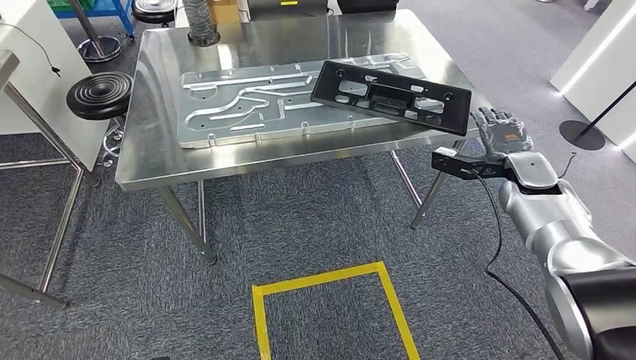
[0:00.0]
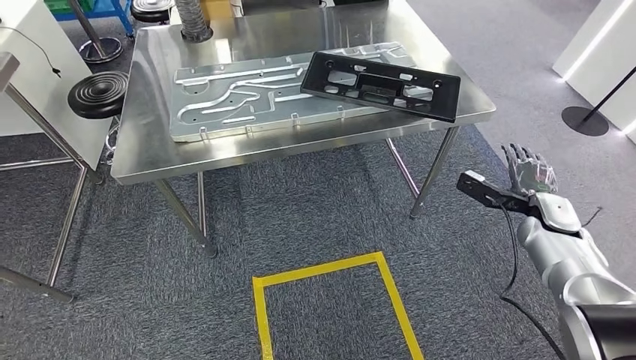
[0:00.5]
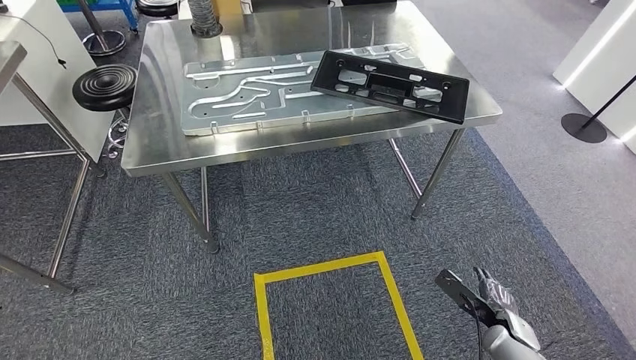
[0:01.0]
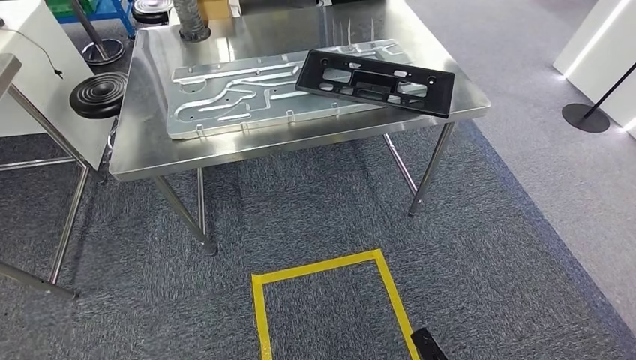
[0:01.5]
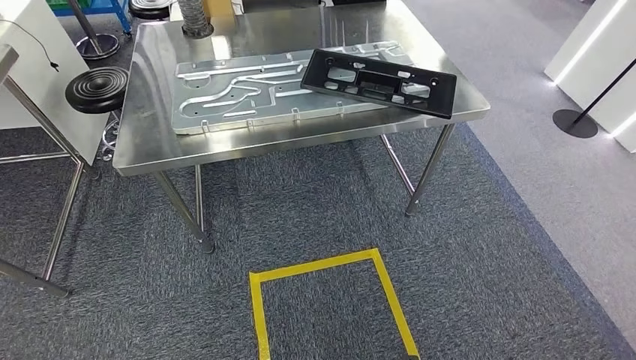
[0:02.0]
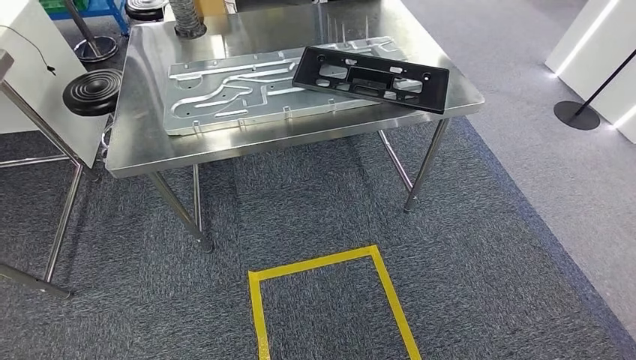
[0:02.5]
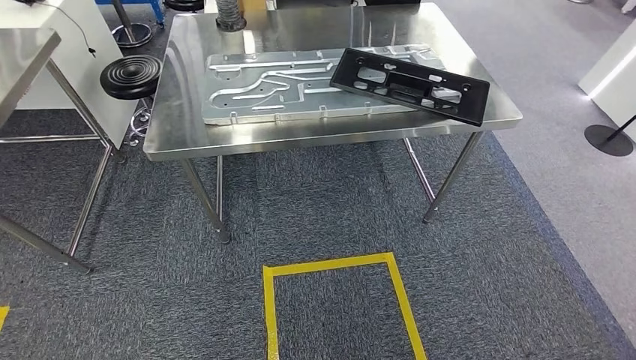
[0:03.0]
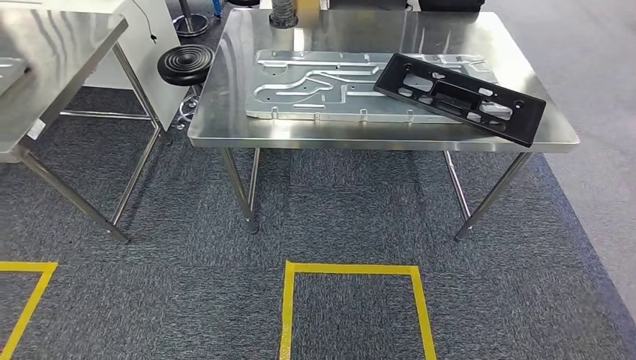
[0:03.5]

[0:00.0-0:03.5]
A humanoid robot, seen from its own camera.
Step, 0:00.0 to 0:03.5: Move to the initial position of the shelf.
